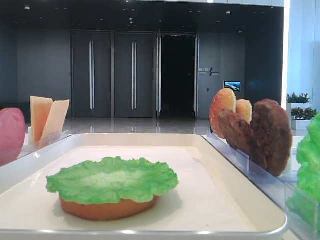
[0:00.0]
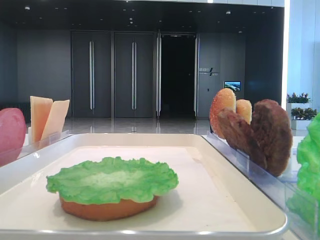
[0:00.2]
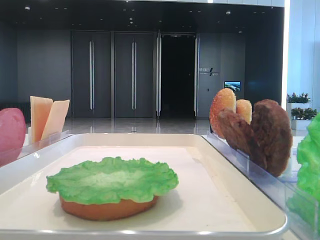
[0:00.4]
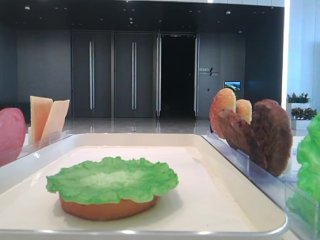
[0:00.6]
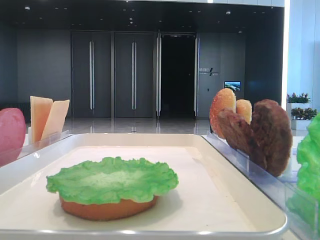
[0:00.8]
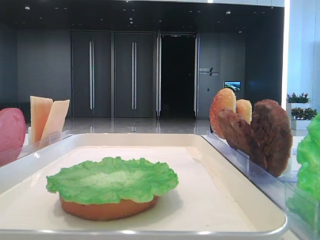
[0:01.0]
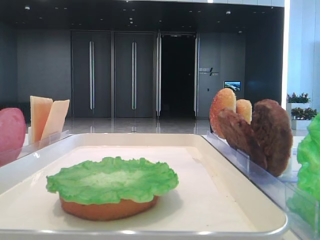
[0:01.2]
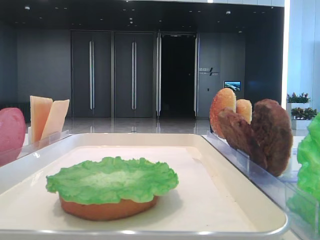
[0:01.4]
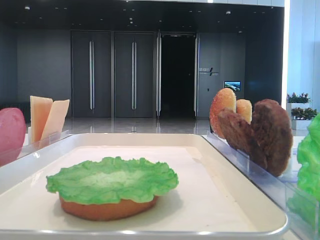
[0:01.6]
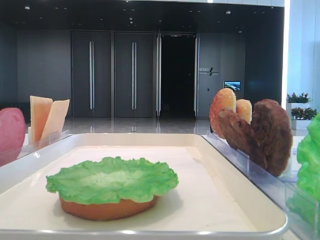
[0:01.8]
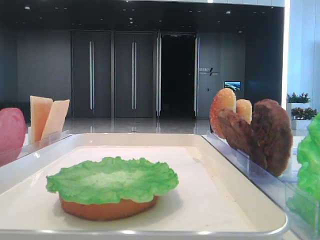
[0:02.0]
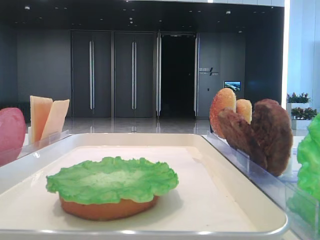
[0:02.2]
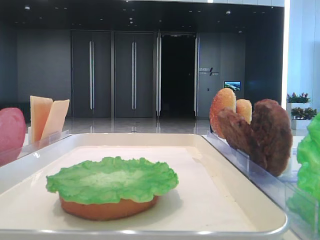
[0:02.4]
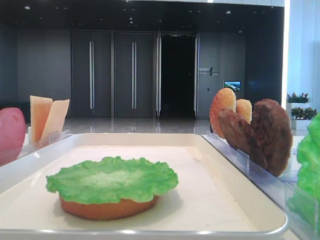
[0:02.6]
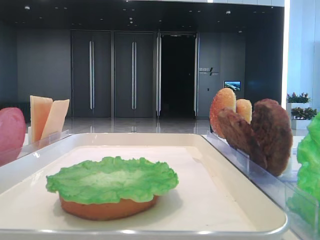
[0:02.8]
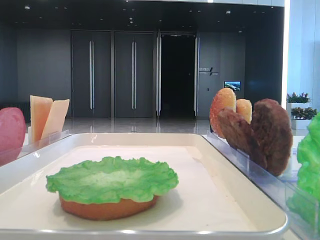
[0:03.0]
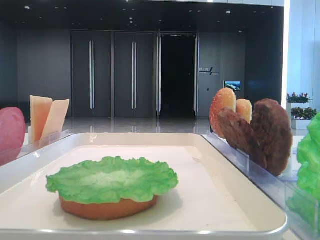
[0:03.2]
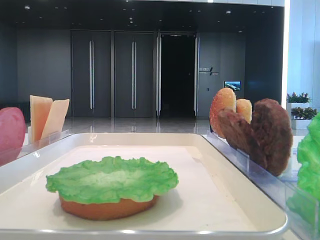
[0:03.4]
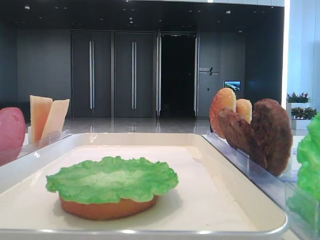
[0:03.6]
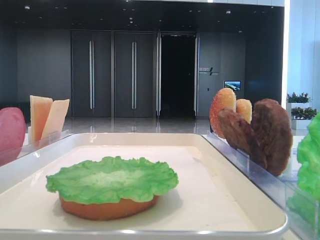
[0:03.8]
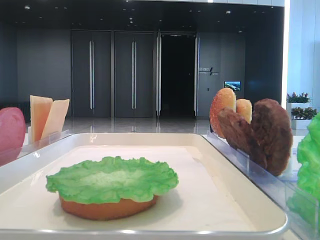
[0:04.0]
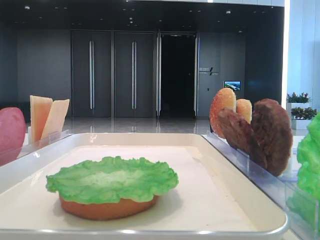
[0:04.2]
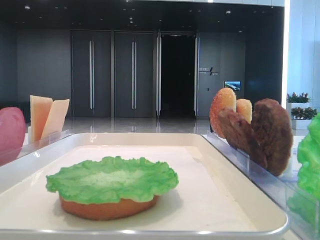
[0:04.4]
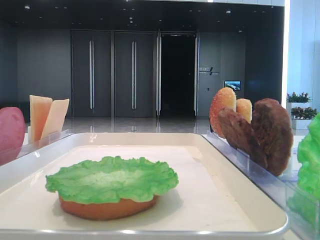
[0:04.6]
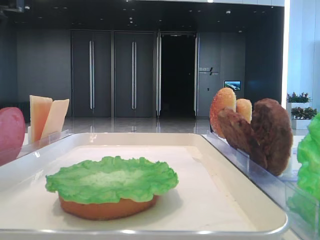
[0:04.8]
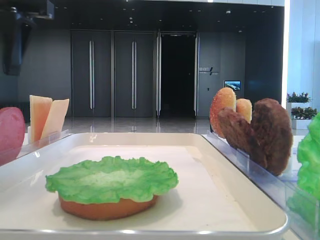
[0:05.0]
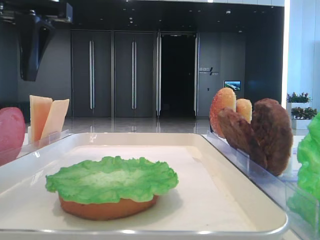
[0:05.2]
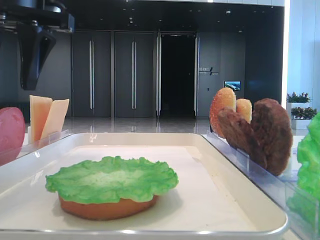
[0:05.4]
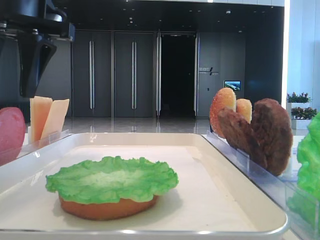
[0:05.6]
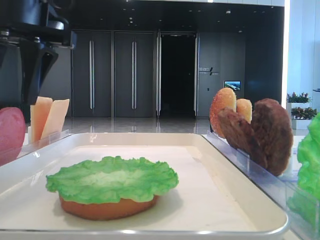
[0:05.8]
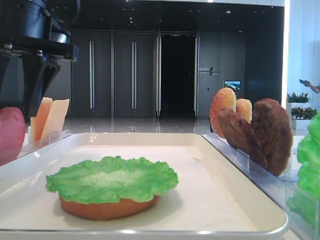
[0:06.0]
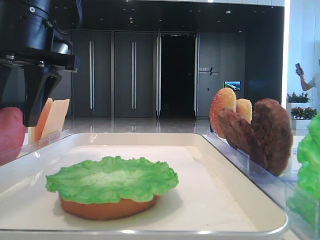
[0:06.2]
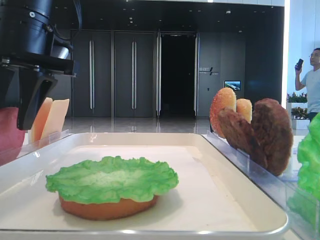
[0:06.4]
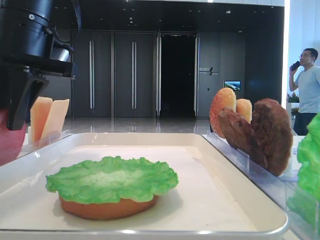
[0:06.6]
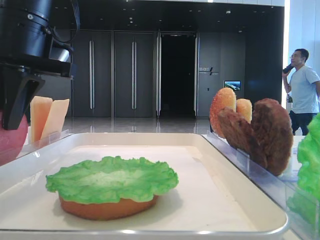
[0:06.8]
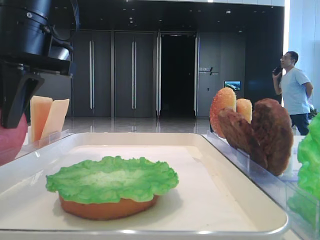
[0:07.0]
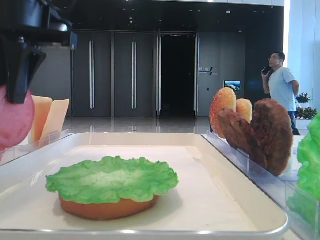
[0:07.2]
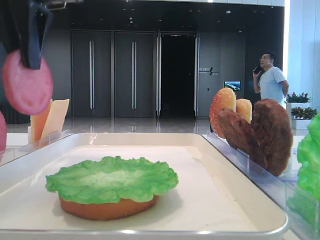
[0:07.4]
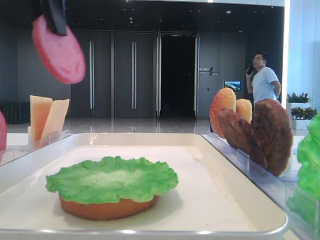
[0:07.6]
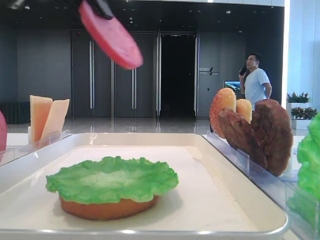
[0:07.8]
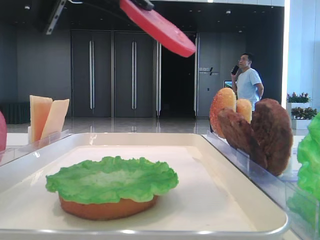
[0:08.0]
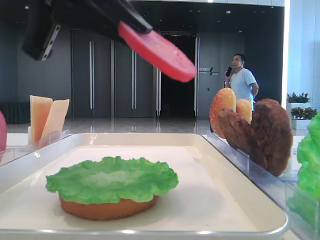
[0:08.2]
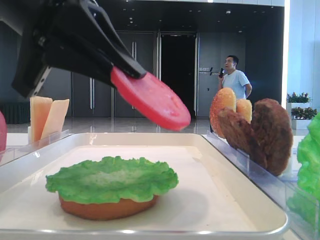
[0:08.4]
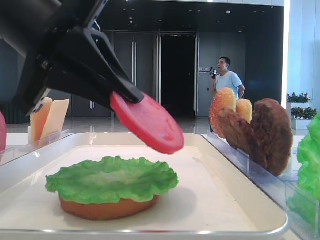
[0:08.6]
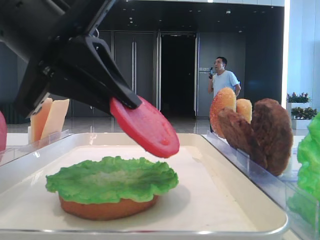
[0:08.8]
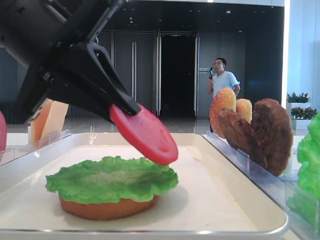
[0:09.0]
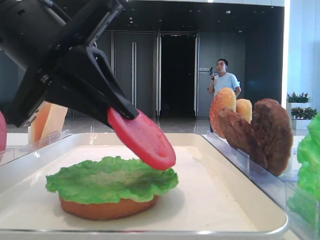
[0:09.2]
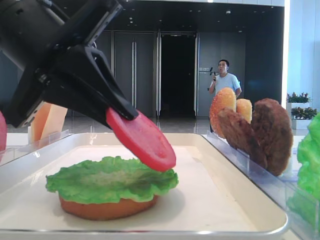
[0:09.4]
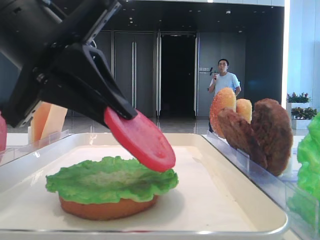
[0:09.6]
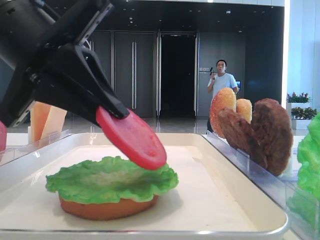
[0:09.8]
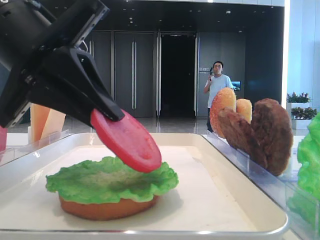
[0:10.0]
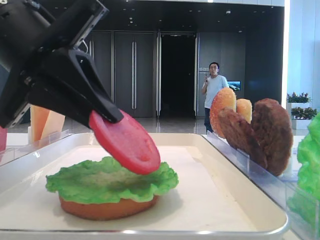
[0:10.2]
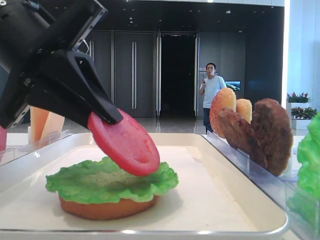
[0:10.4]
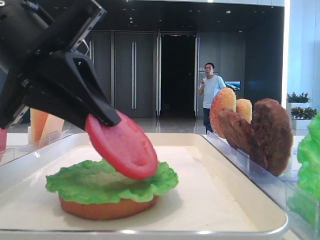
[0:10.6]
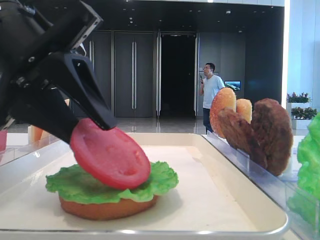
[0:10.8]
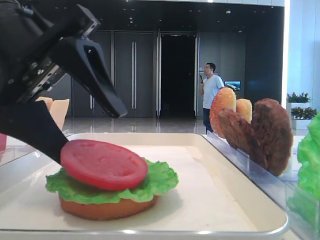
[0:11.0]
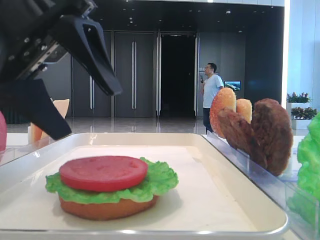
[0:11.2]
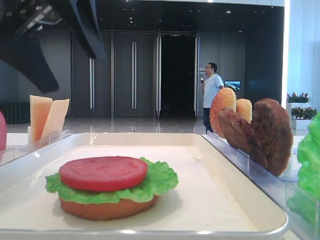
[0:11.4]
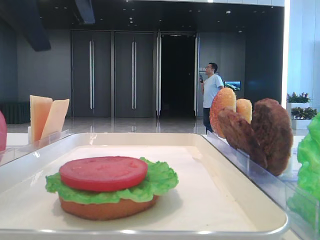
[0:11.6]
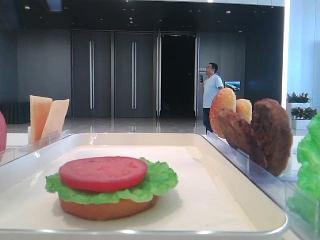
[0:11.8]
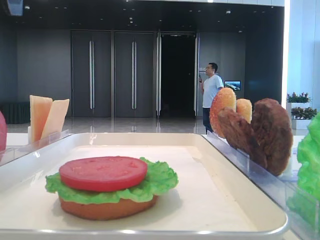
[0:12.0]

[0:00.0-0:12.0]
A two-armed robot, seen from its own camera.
Step, 0:00.0 to 0:06.8: Pick up the tomato slice with the left hand.
Step, 0:07.0 to 0:11.0: Place the tomato slice on the lettuce leaf with the left hand.
0:04.4 to 0:06.0: The left gripper is displaced to the right and downward by some 15 cm.
0:06.0 to 0:07.6: The left gripper is displaced upward by about 10 cm, and closes its fingers.
0:07.6 to 0:09.0: The left gripper is displaced downward by approximately 15 cm.
0:09.0 to 0:10.4: The two grippers keep their place.
0:10.4 to 0:12.0: The left gripper travels upward, to the left and forward by roughly 20 cm, and opens up.

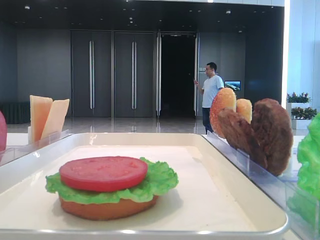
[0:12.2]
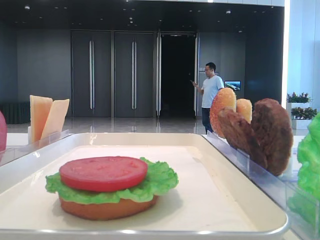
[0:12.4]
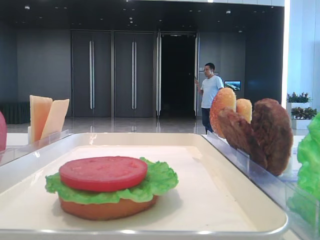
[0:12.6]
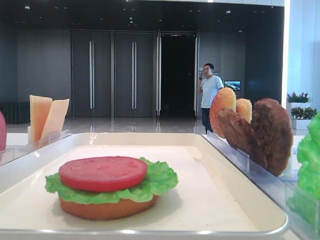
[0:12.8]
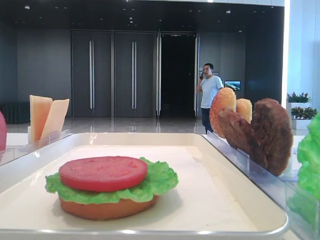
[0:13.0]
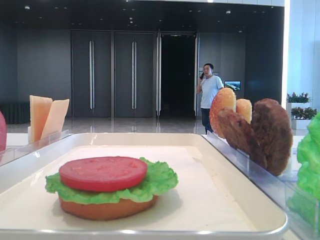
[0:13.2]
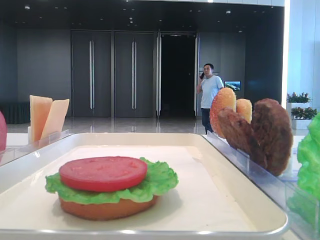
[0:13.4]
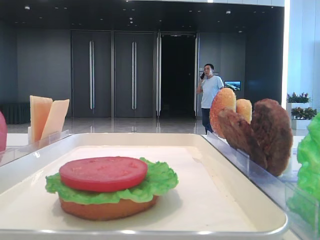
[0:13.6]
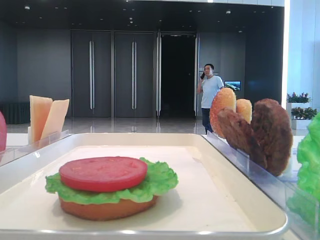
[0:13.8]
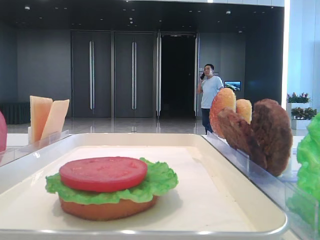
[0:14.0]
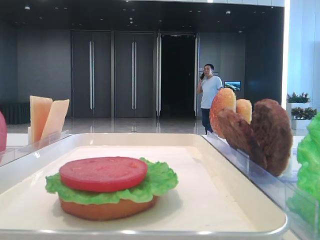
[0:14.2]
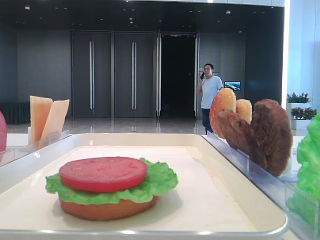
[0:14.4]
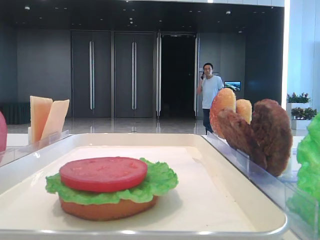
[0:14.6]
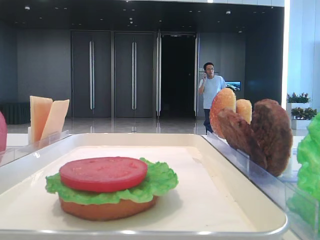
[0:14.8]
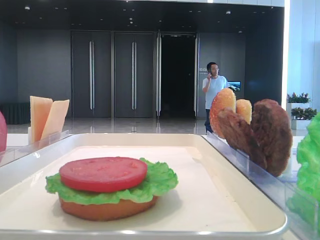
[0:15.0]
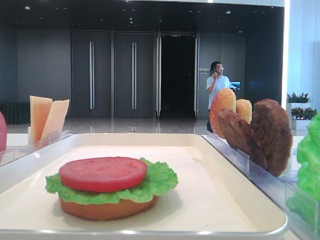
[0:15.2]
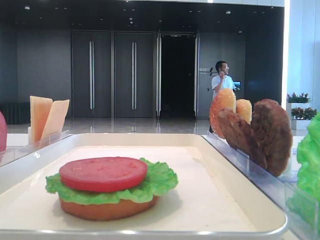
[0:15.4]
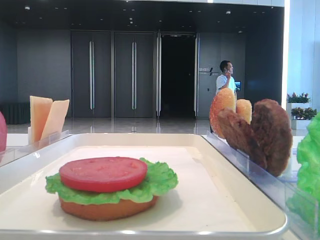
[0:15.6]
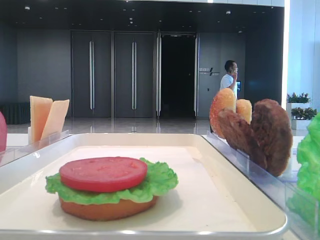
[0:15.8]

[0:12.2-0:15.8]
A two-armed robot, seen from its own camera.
0:14.0 to 0:15.8: The left gripper is displaced backward by approximately 10 cm.

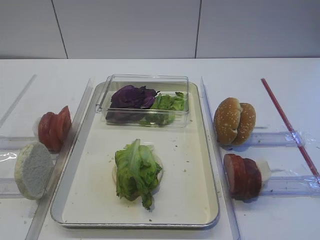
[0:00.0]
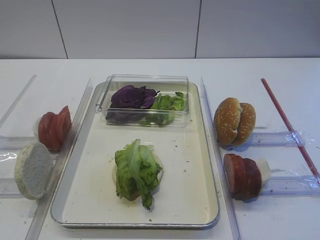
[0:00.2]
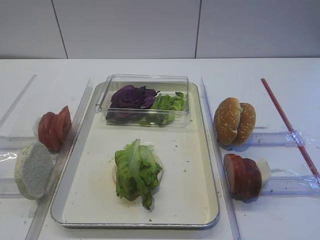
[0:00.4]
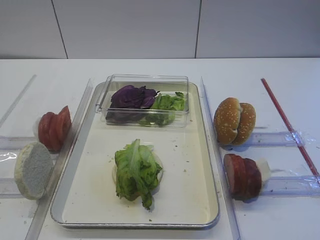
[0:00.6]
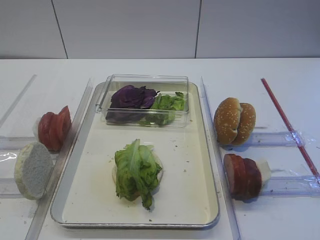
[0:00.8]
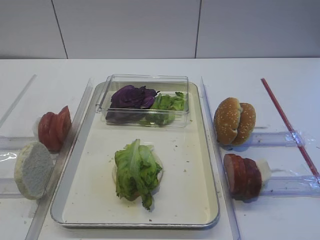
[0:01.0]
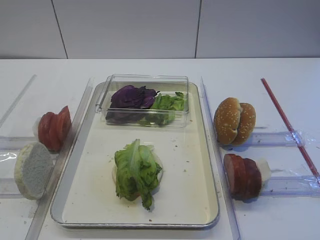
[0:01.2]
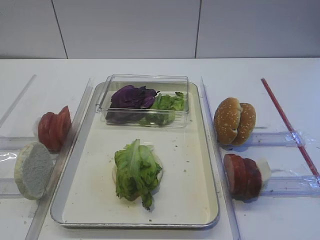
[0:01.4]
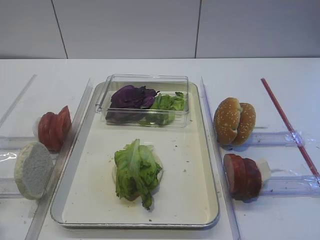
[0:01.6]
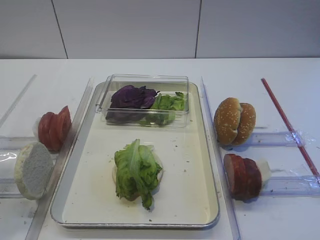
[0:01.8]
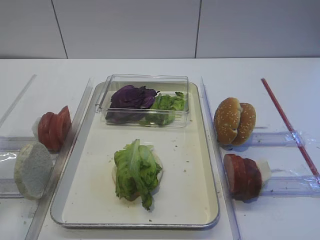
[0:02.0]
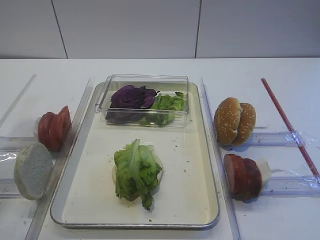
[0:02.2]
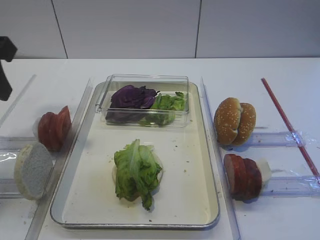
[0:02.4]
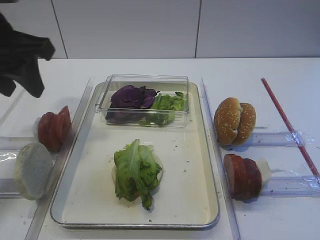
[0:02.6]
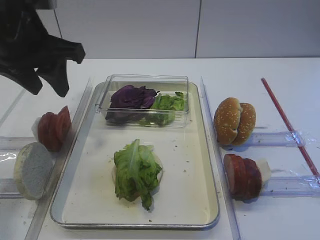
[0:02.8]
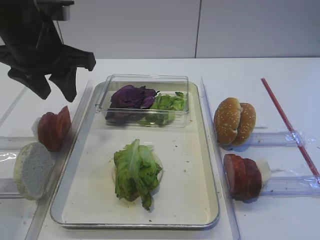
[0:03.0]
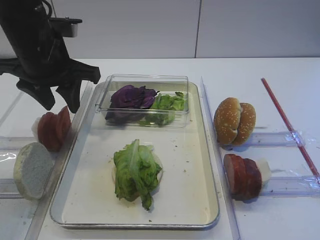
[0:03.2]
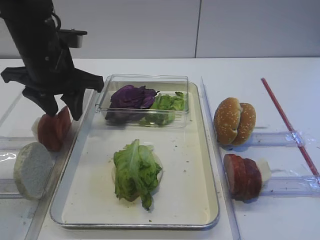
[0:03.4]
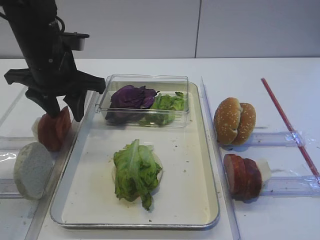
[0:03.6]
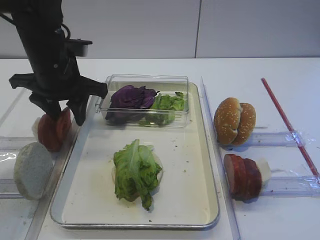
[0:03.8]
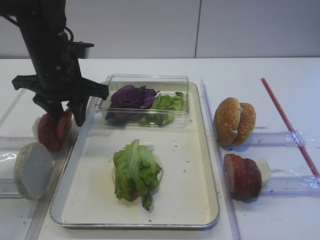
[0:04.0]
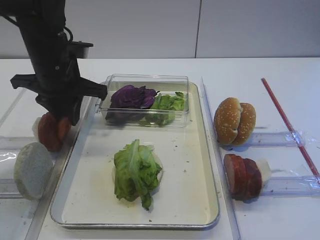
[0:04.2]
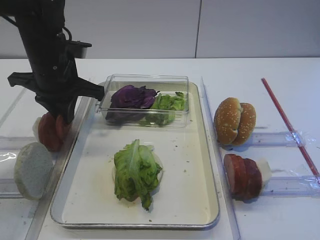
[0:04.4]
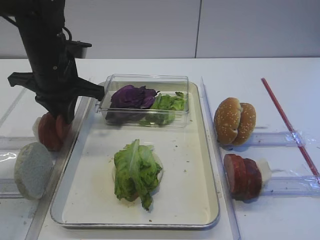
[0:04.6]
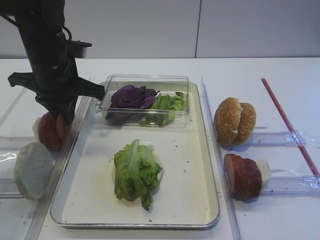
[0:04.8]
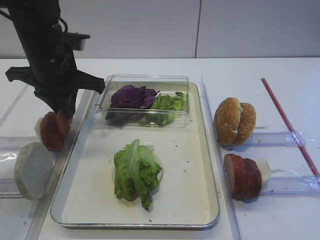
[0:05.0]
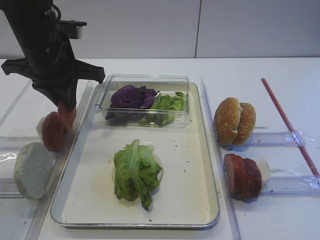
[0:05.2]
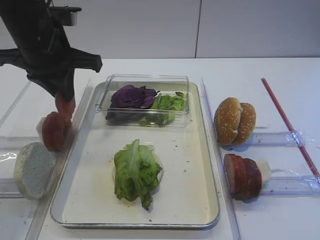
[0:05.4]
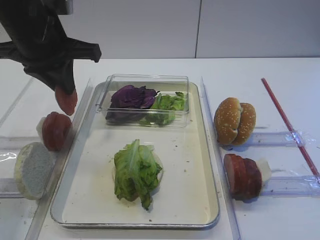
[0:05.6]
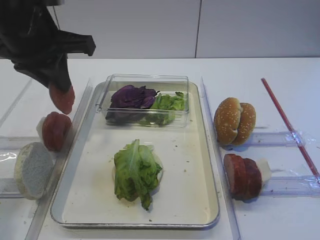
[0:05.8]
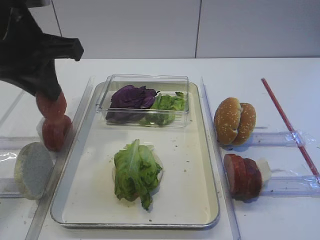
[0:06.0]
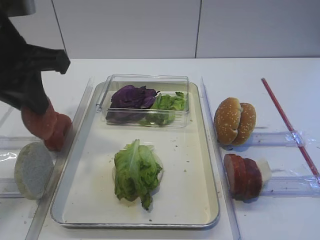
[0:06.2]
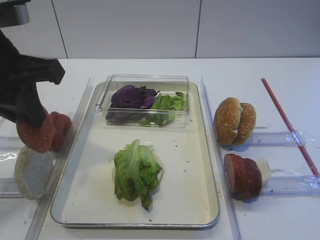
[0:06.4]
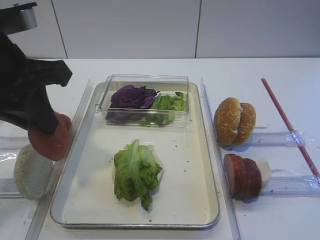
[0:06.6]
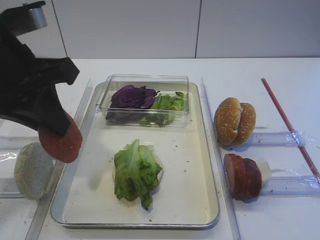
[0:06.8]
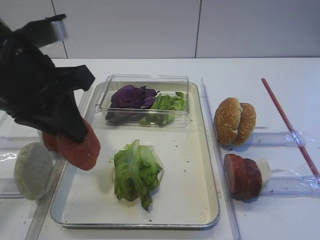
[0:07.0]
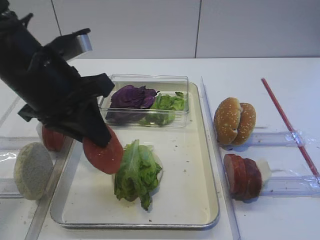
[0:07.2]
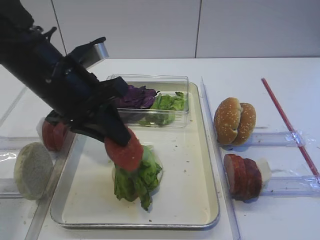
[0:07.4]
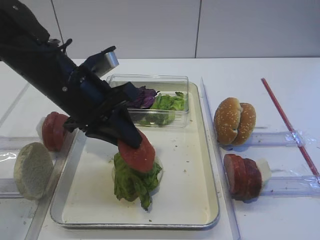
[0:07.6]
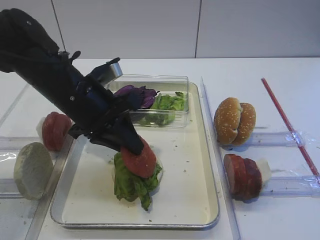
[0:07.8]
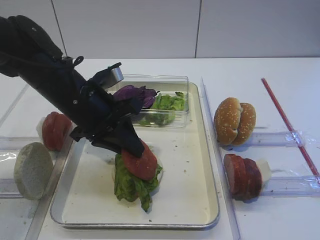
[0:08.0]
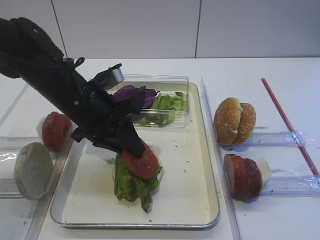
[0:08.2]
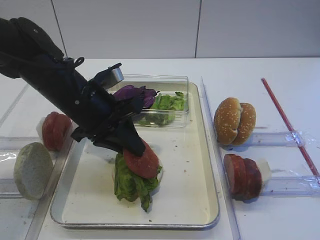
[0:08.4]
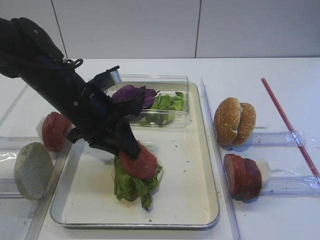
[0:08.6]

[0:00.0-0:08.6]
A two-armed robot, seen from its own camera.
Step, 0:00.0 to 0:05.0: Pick up the tomato slice with the left gripper.
0:01.4 to 0:02.8: The left gripper moves forward, about 30 cm.
0:02.8 to 0:04.4: The left gripper shifts approximately 10 cm downward and forward, and closes.
0:04.4 to 0:05.8: The left gripper travels upward and backward by about 10 cm.
0:05.8 to 0:07.2: The left gripper shifts about 5 cm backward.
0:07.2 to 0:08.6: The left gripper is displaced downward by about 10 cm.